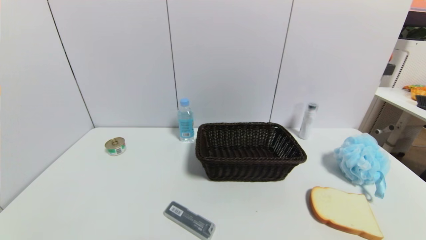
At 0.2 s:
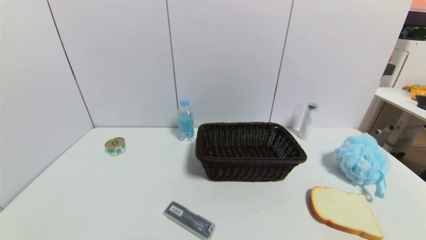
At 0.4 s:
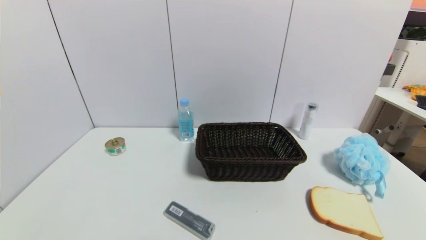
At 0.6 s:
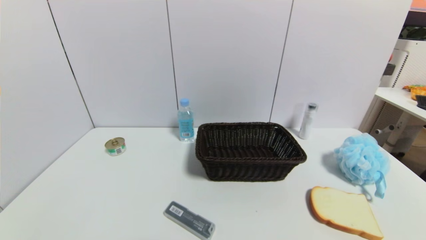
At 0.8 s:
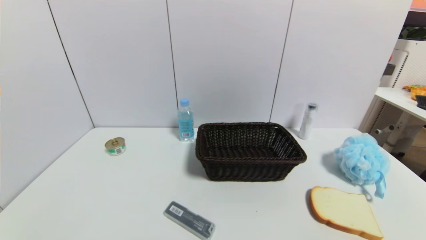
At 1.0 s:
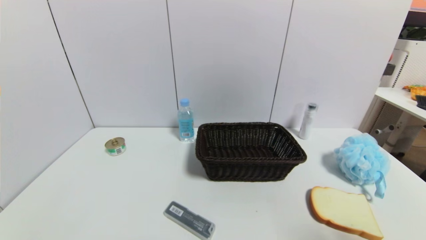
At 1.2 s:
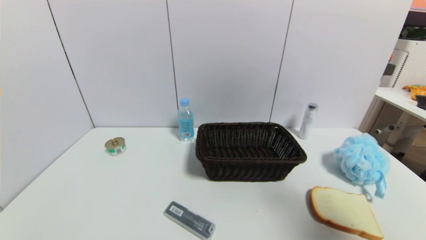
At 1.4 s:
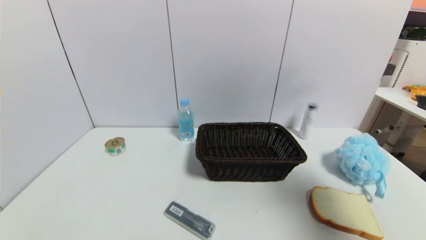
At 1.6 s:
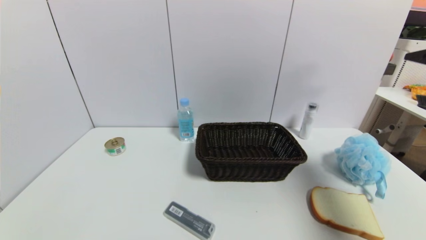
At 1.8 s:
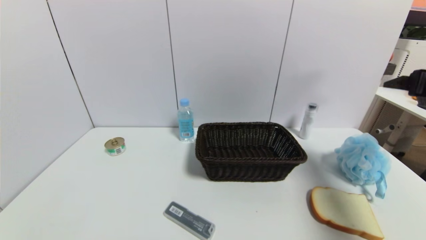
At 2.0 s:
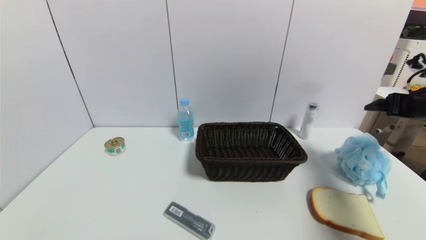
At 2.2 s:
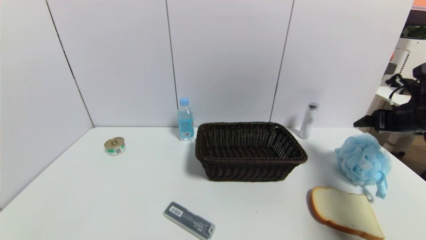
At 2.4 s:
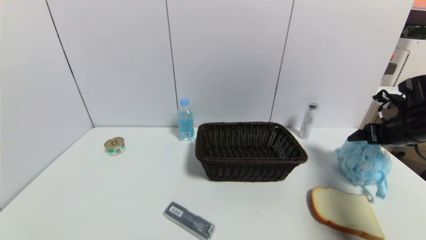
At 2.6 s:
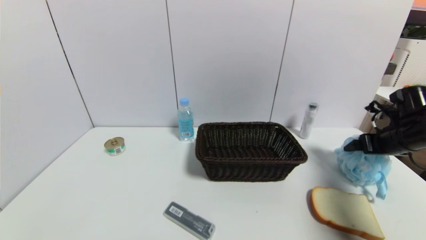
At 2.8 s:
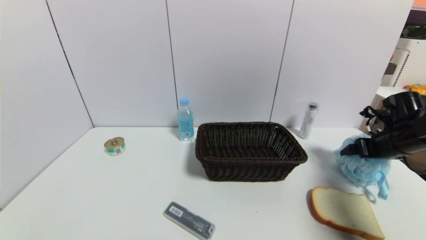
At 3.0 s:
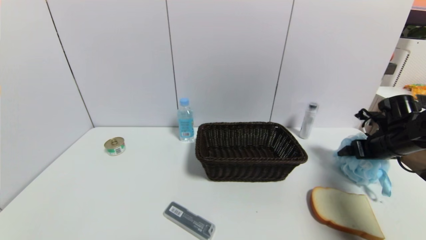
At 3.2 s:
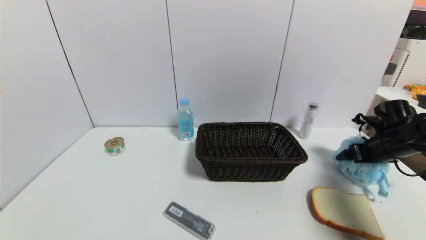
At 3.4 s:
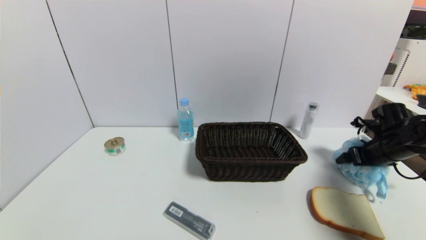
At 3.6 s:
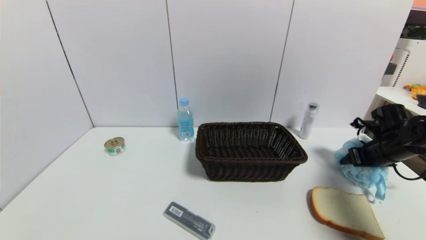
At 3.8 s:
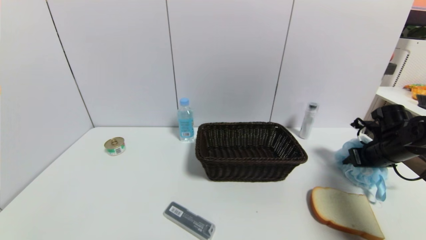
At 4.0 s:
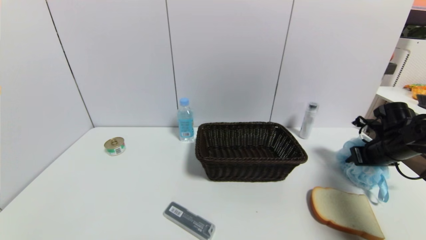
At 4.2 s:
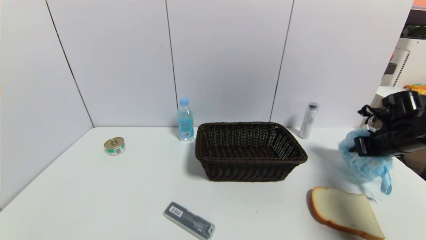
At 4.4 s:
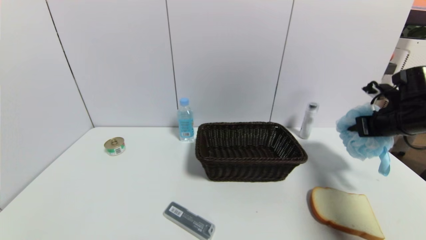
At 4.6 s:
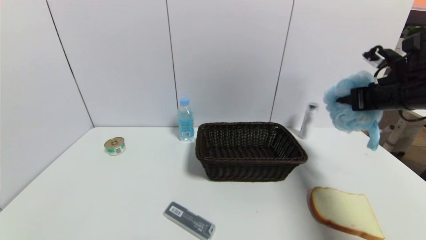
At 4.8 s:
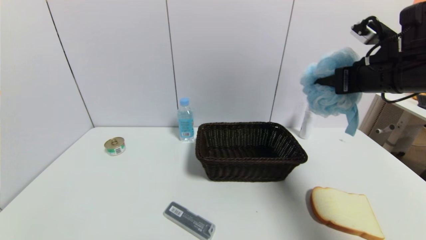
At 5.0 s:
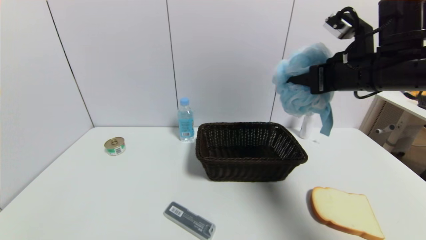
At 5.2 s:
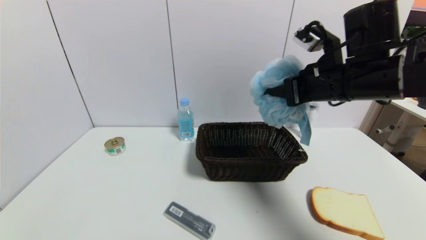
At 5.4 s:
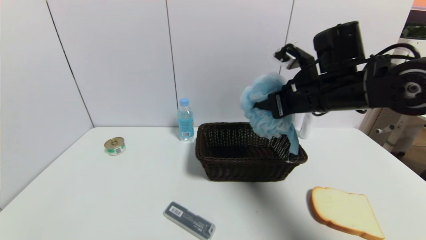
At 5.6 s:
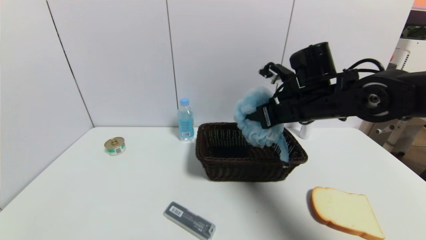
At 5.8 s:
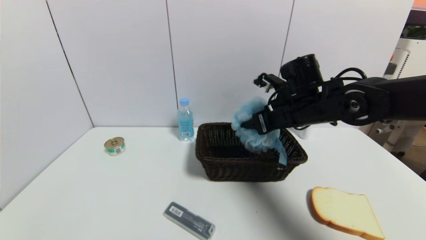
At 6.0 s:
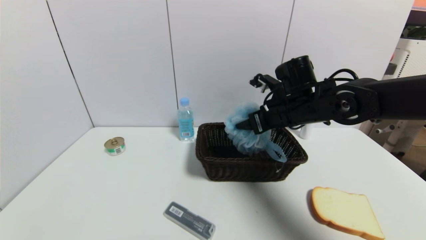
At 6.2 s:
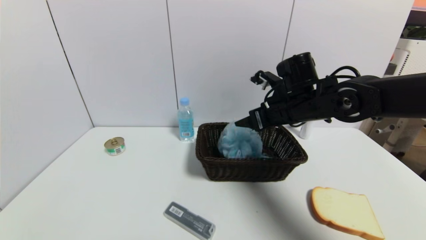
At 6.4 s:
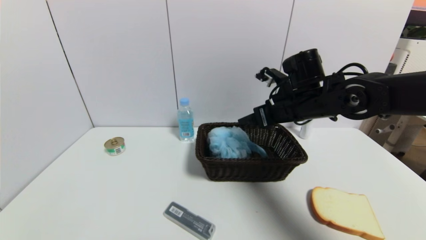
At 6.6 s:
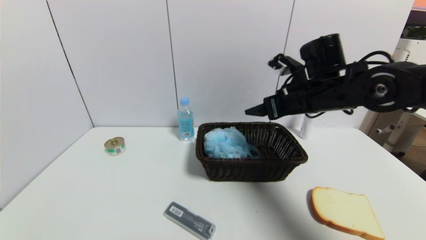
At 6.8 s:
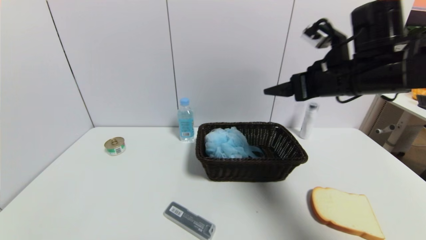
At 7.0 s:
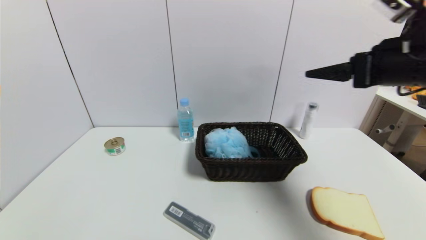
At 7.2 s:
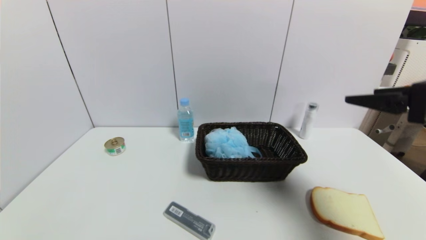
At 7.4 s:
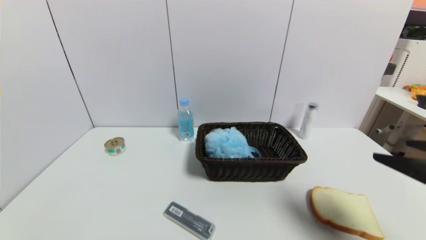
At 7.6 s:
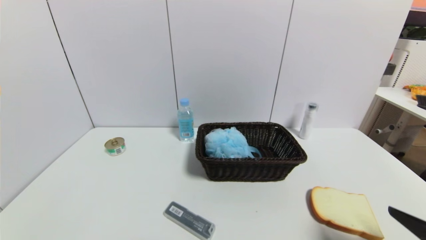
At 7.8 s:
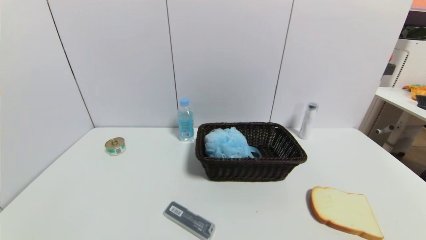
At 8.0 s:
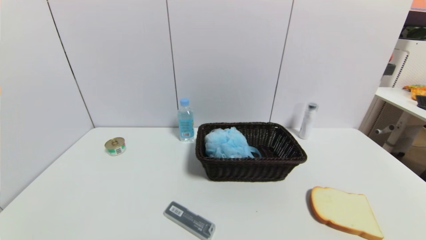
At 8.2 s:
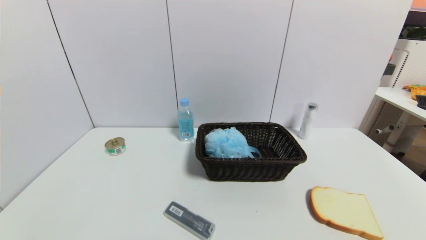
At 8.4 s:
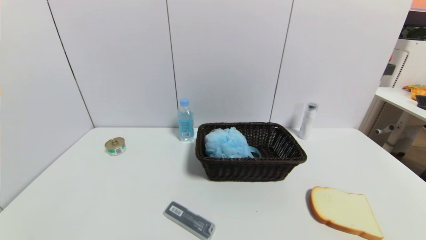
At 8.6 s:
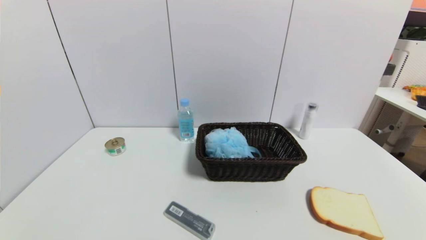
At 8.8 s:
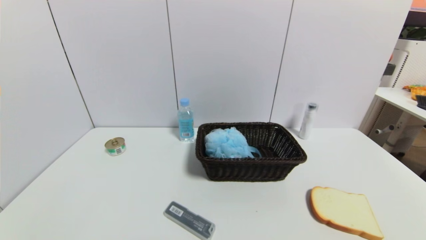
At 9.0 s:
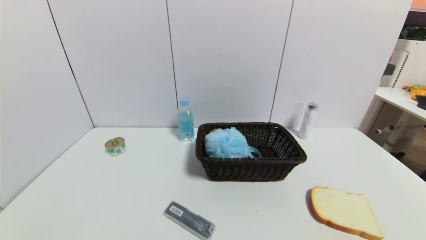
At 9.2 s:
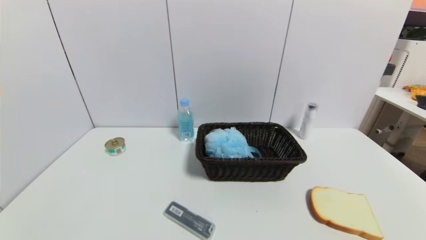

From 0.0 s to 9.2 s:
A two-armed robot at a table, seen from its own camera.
Task of the whole recording: use a gripper to pick the target object and place on the brown basket.
Step, from 0.0 s to 4.0 s: Grasp the shower sphere with the right gripper.
Step, from 4.2 s to 6.2 s: Place the shower sphere into the basket with the right gripper.
From 0.0 s to 1.6 s: The right gripper shifts about 35 cm upward and forward.
From 1.6 s to 3.0 s: The right gripper goes roughly 25 cm downward and forward.
From 3.0 s to 4.6 s: The right gripper travels upward and to the left by roughly 15 cm, and closes up.
From 4.6 s to 6.2 s: The right gripper goes roughly 20 cm to the left, and opens its fingers.
From 6.2 s to 7.6 s: The right gripper heads backward and to the right, covering some 35 cm.
From 7.6 s to 9.2 s: The right gripper is displaced downward and backward by some 10 cm.
